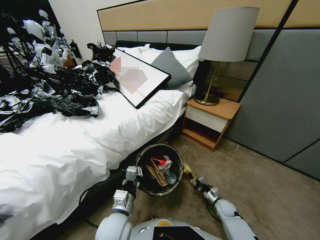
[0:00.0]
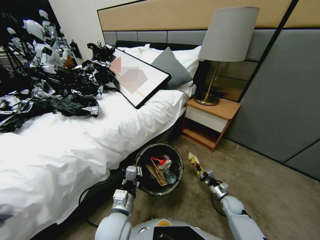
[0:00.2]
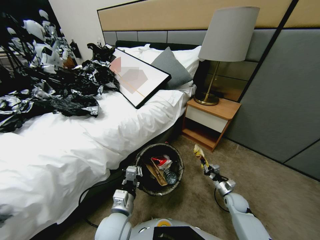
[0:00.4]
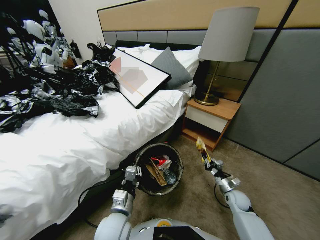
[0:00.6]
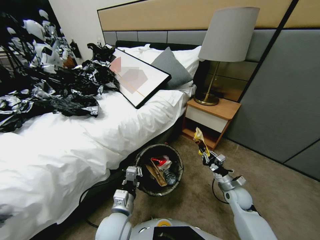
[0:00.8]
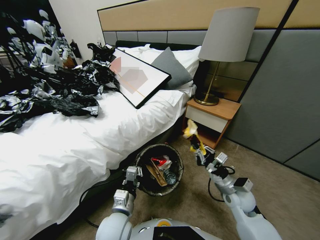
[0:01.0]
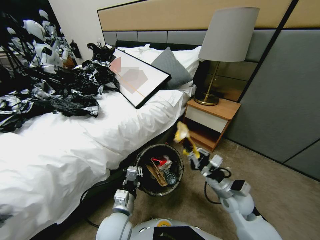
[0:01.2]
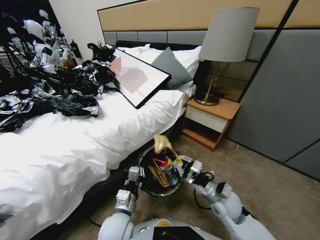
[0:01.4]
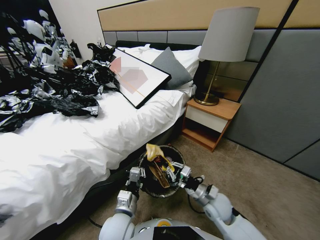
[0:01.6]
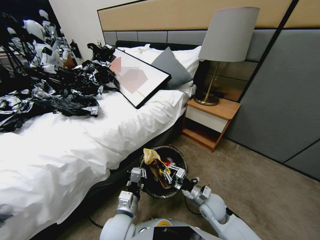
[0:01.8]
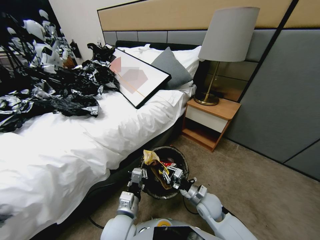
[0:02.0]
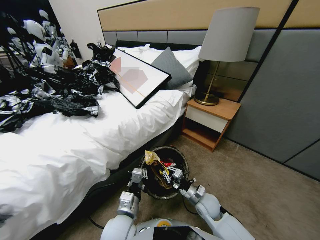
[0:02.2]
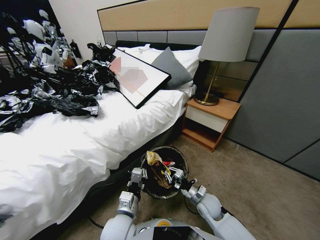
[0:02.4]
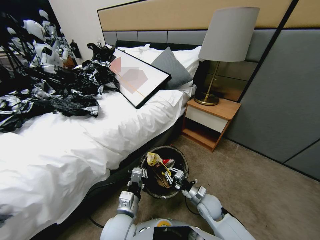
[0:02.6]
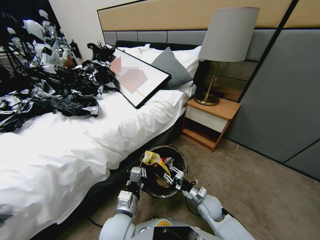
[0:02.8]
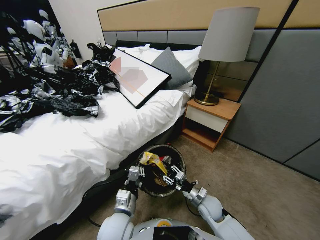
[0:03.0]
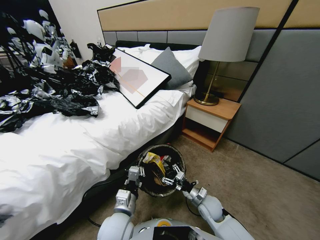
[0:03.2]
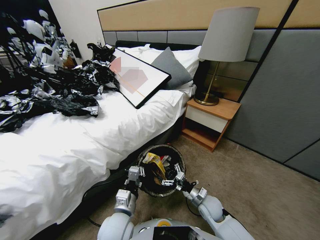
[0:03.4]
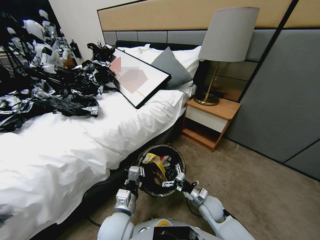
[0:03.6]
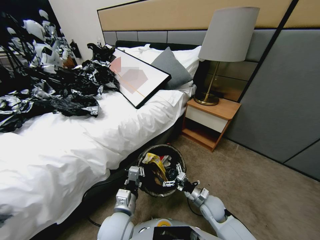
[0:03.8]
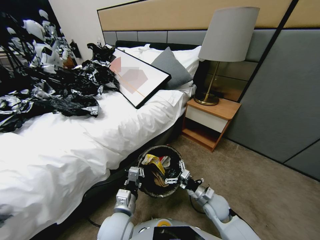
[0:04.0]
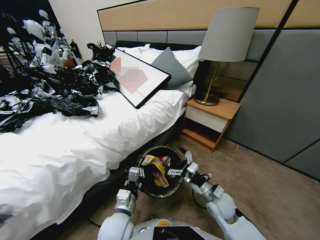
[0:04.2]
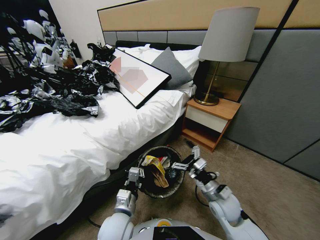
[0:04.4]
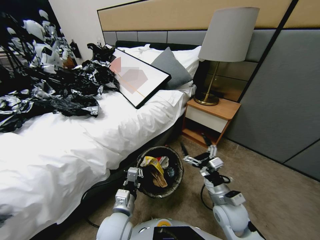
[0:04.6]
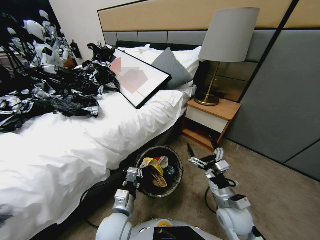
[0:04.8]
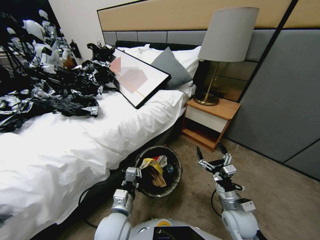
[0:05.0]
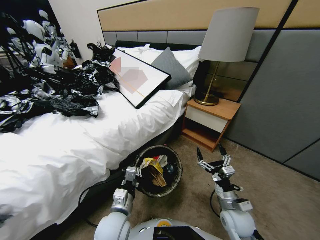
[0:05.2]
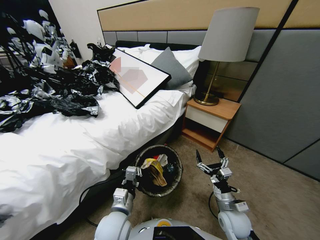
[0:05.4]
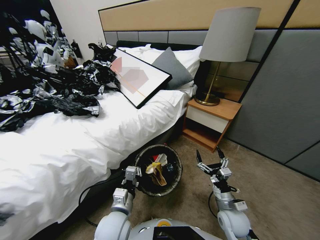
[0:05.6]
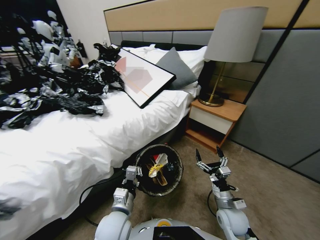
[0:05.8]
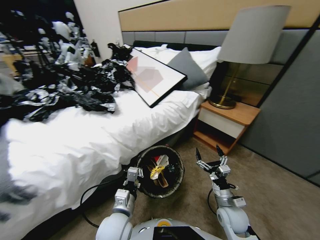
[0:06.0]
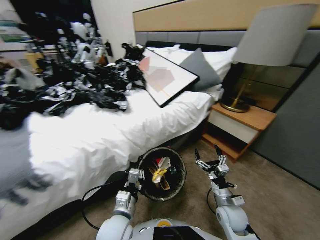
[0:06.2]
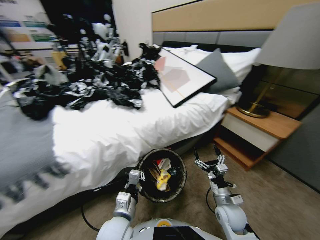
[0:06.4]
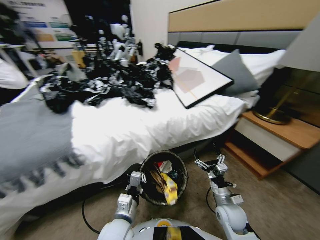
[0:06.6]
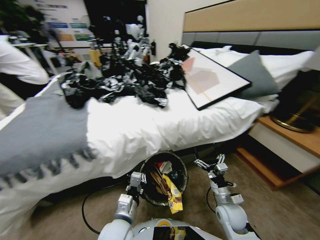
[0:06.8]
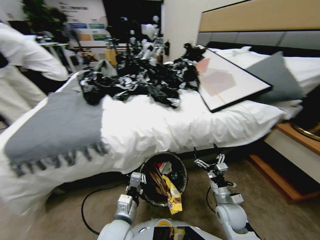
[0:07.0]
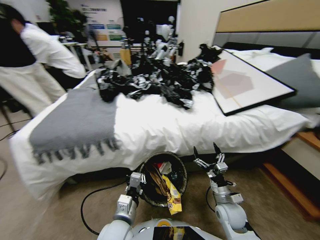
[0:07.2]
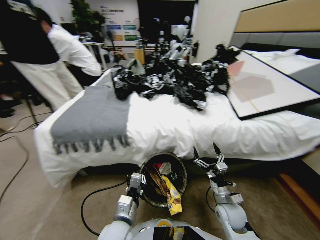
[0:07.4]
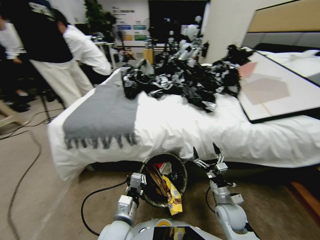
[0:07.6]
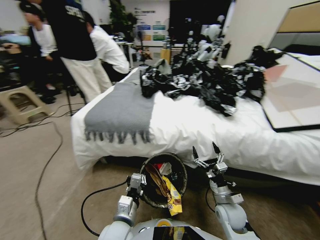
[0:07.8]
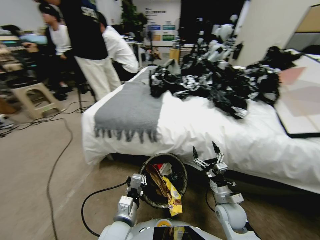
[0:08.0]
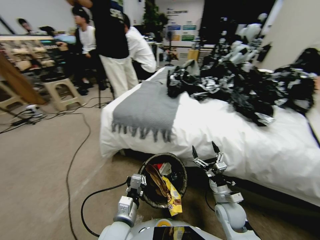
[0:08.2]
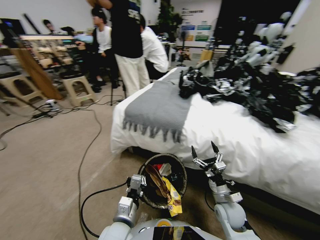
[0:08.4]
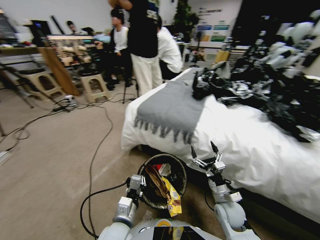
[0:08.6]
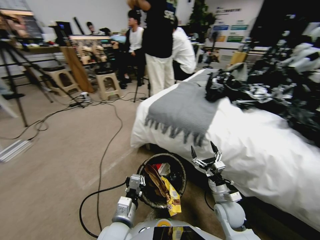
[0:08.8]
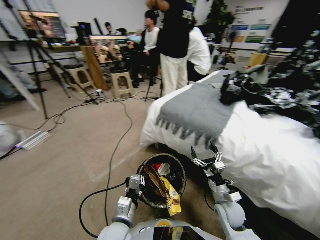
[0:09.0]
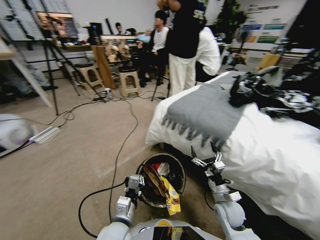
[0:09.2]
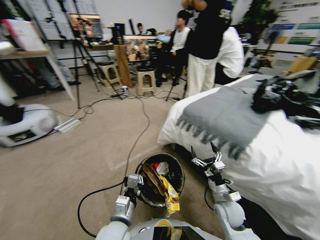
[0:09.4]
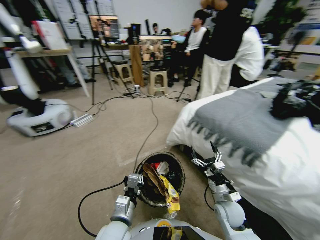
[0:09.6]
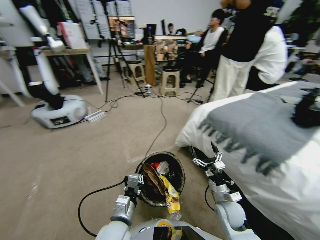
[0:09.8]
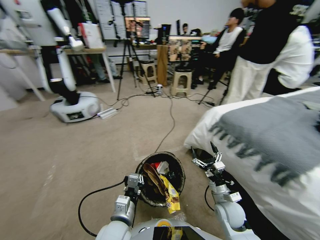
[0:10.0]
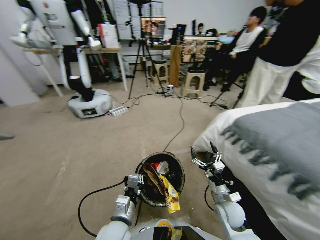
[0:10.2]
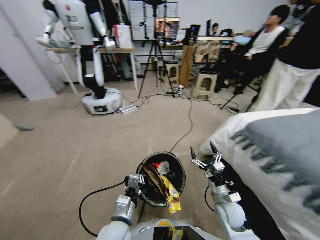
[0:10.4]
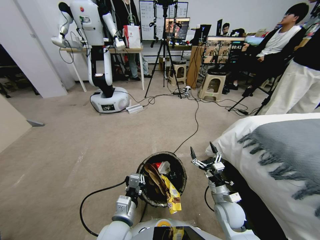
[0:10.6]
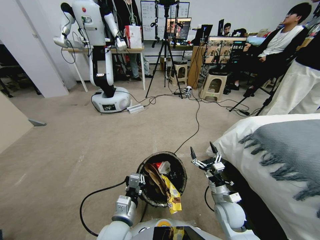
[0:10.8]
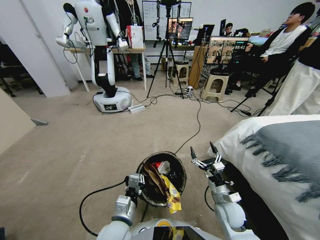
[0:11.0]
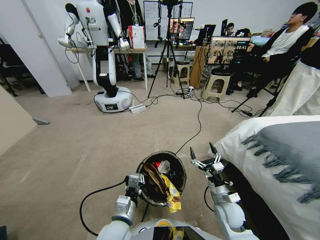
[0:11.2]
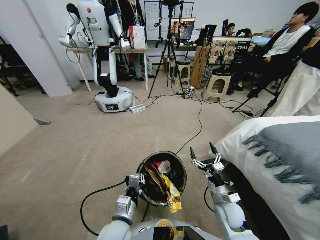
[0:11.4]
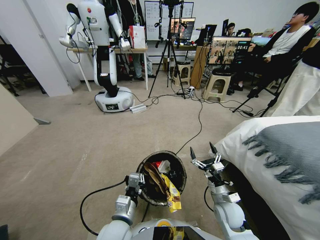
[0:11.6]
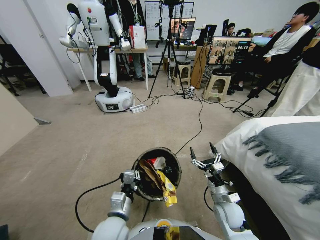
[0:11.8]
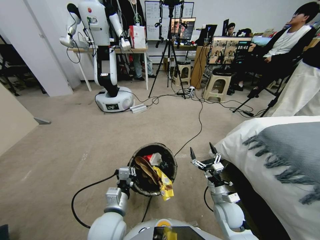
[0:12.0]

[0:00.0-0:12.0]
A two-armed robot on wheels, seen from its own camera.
Task of the whole recording: Pick up the trash bin, then pick up the garbage from the floor and place it into the trash bin.
0:00.0 to 0:01.6: The right gripper travels upward and to the left by approximately 25 cm.
0:01.6 to 0:03.0: The right gripper moves downward, approximately 5 cm, and opens up.
0:03.0 to 0:04.4: The right gripper travels upward by some 10 cm, and opens its fingers.
0:04.4 to 0:06.0: The right gripper goes some 5 cm downward.

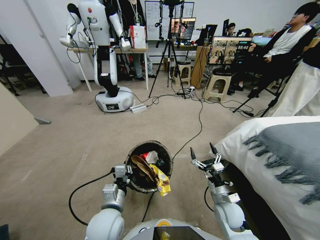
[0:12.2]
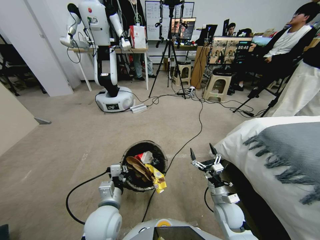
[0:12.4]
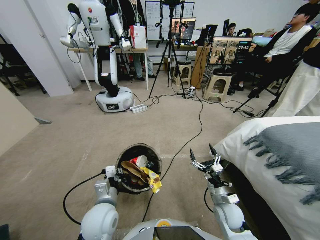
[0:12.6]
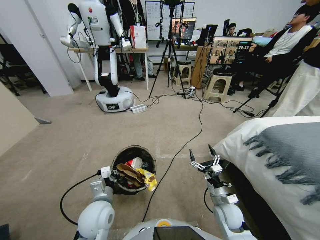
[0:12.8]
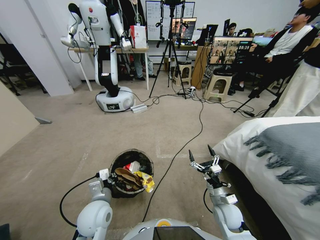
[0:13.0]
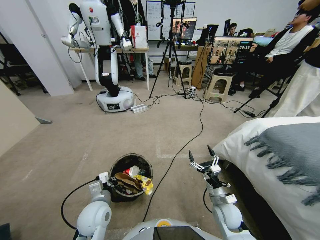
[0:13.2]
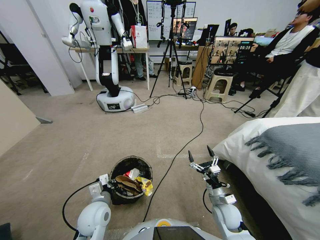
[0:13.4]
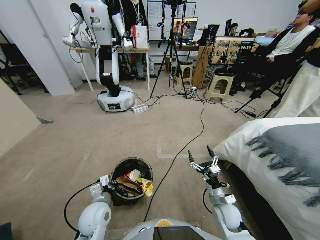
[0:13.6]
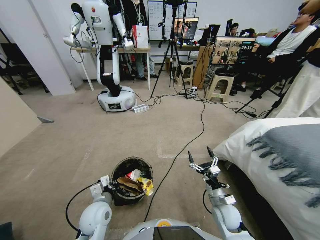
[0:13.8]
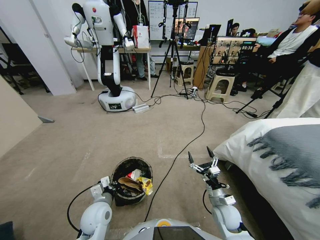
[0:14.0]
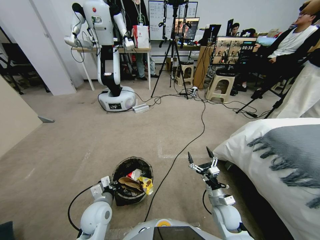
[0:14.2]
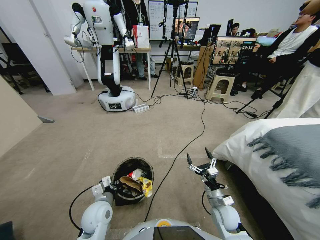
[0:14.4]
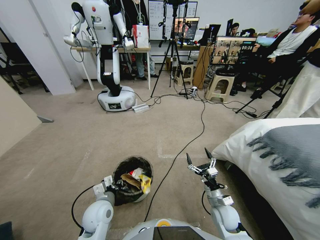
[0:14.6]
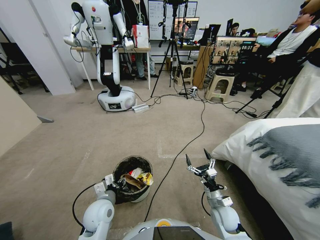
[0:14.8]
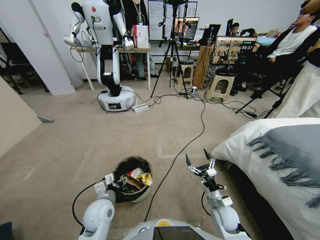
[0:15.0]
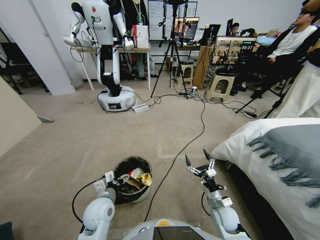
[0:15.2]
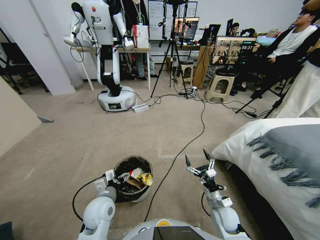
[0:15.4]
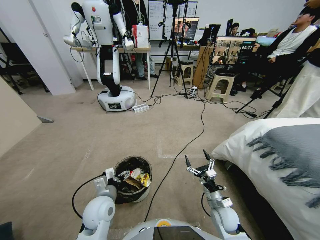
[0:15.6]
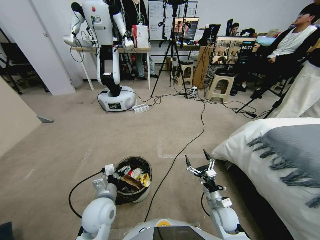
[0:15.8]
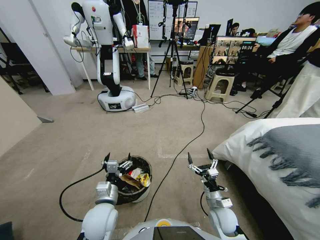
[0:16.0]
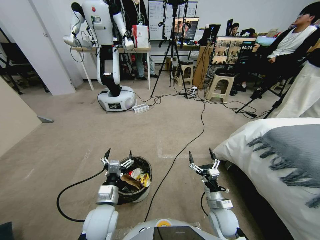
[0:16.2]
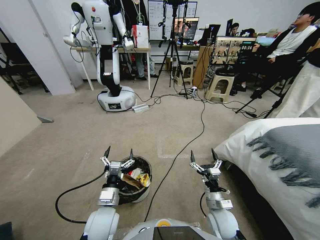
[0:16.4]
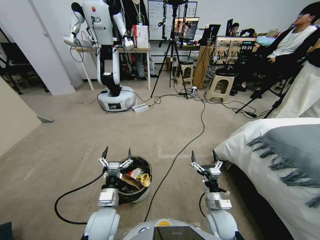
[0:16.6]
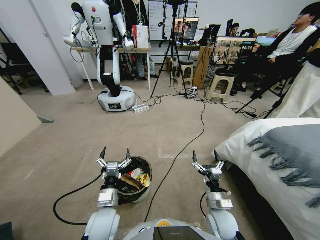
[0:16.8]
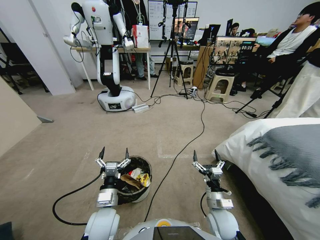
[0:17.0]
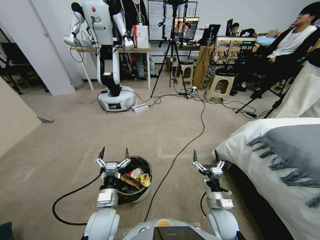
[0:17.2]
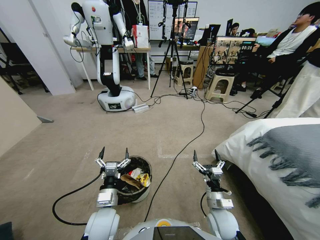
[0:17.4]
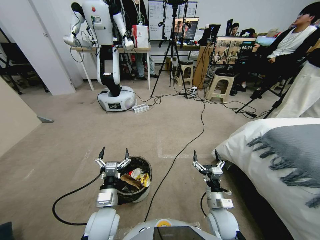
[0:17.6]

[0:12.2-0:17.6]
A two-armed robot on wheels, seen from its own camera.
Task of the whole recording: Pick up the trash bin, then pick up the garbage from the floor and place it into the trash bin.
0:12.2 to 0:13.6: The left gripper goes some 10 cm to the left and downward.
0:13.6 to 0:15.0: The left gripper opens up.
0:15.0 to 0:16.2: The right gripper shifts by roughly 5 cm.
0:16.2 to 0:17.6: The grippers move only a little.

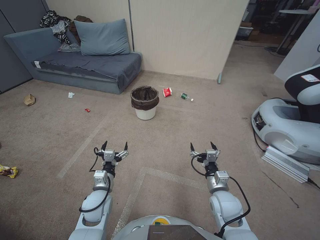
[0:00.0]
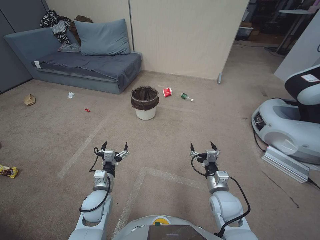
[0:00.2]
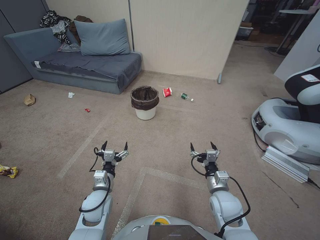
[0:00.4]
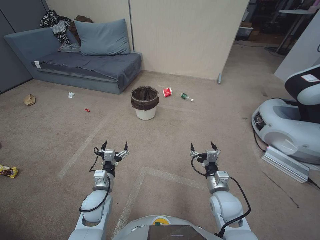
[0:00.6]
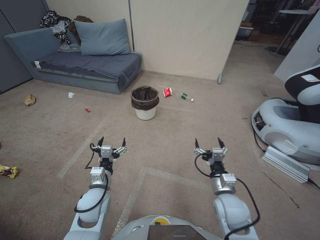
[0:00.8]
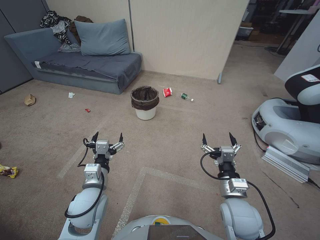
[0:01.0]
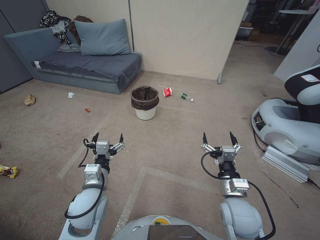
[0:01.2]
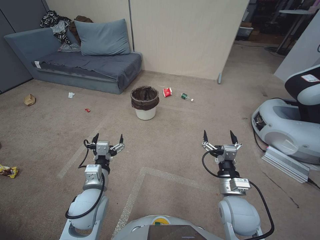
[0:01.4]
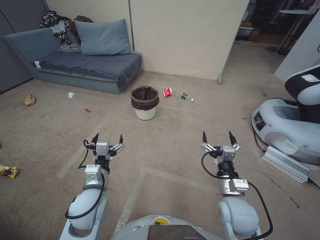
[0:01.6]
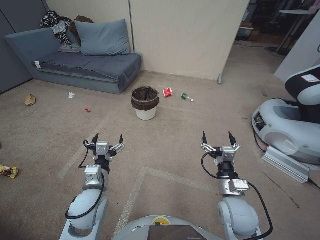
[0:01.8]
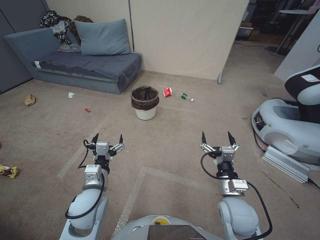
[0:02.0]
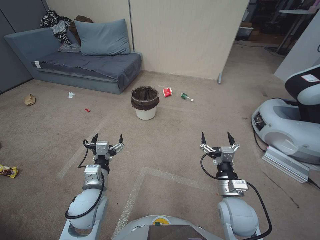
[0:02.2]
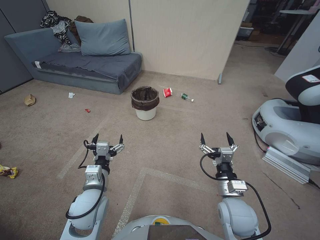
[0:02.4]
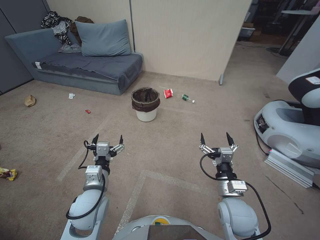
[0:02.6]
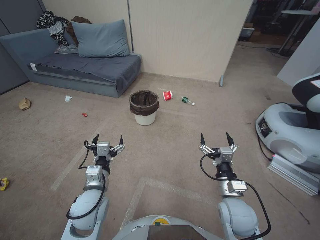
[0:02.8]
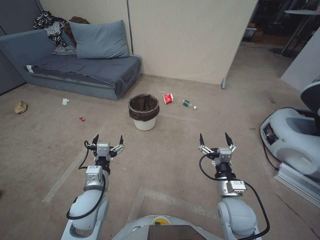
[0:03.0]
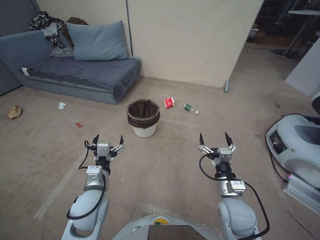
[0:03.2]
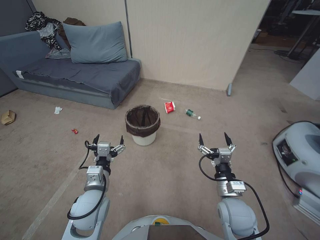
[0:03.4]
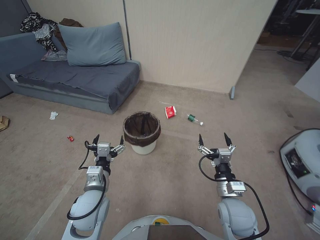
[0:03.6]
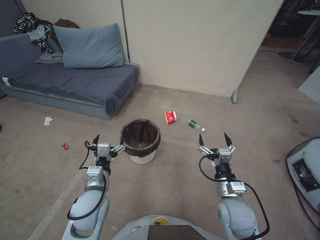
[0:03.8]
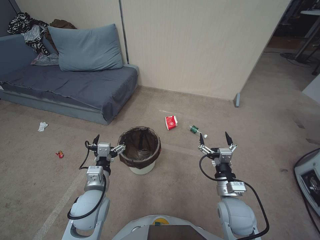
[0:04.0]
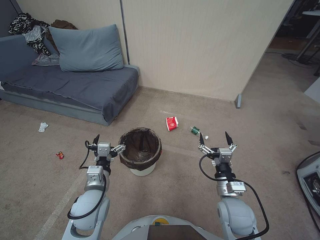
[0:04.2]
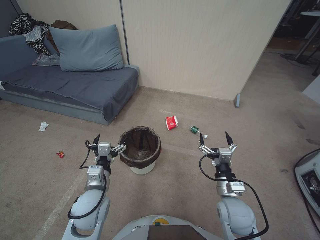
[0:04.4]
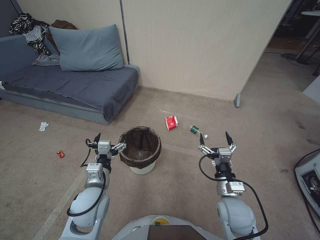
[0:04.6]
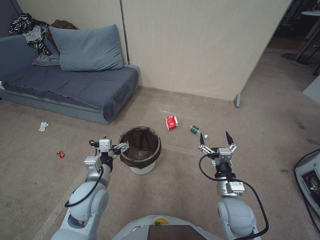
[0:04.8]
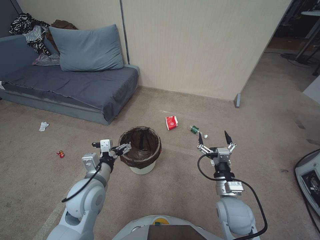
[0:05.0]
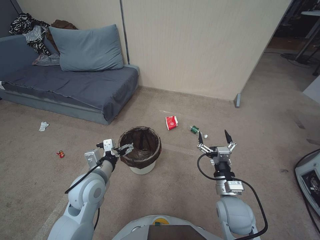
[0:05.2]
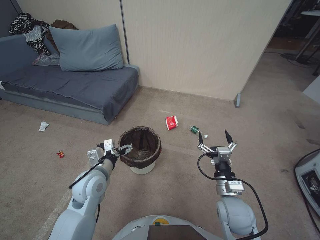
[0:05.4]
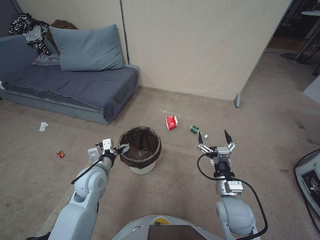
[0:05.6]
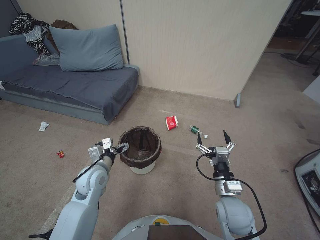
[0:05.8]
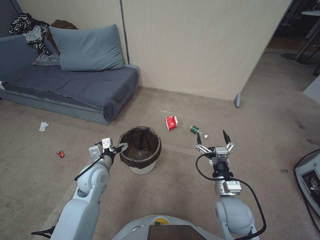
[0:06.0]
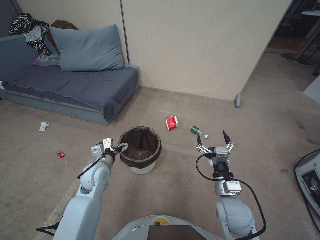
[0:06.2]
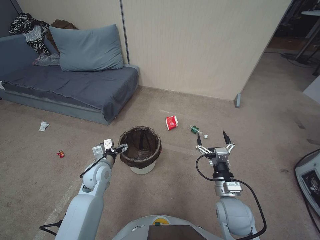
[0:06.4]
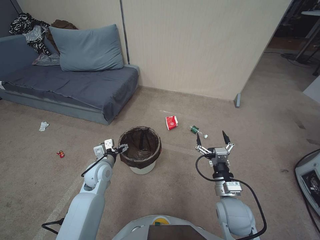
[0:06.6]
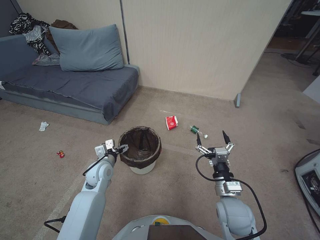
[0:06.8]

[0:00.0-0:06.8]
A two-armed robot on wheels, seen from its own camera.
Task of the whole recording: Pick up the trash bin, then pick up the garbage from the floor and place it into the trash bin.
0:01.4 to 0:02.8: The grippers stay close to where they were, moving slightly.
0:05.4 to 0:06.8: The left gripper moves forward and downward, approximately 10 cm.
